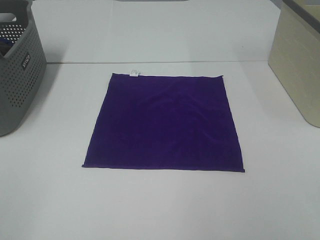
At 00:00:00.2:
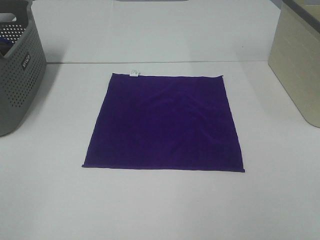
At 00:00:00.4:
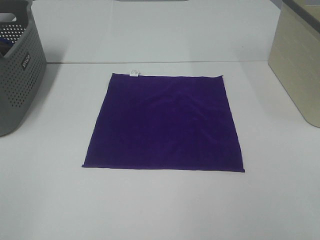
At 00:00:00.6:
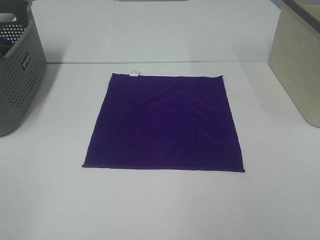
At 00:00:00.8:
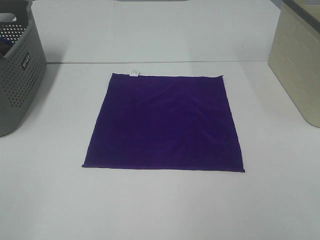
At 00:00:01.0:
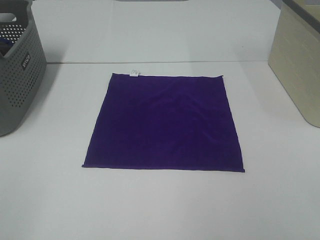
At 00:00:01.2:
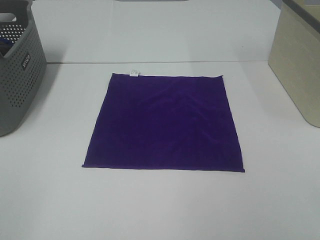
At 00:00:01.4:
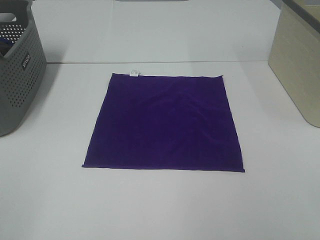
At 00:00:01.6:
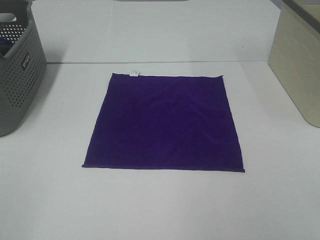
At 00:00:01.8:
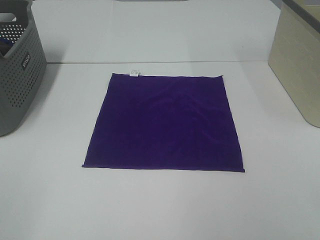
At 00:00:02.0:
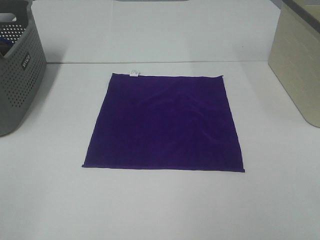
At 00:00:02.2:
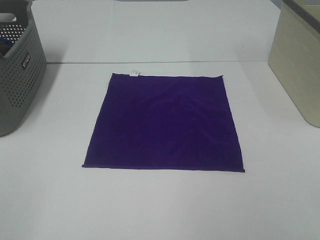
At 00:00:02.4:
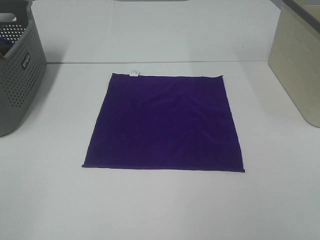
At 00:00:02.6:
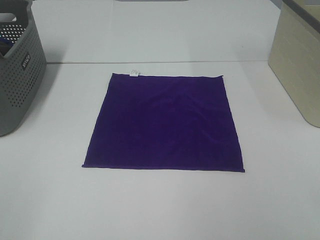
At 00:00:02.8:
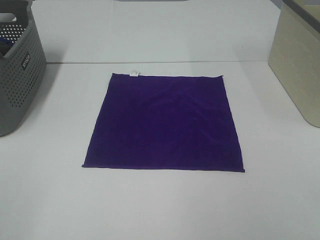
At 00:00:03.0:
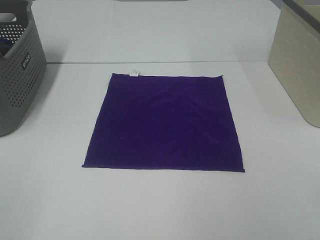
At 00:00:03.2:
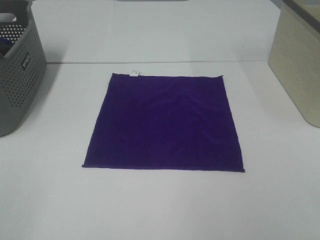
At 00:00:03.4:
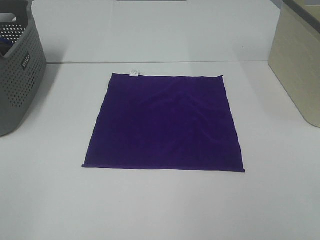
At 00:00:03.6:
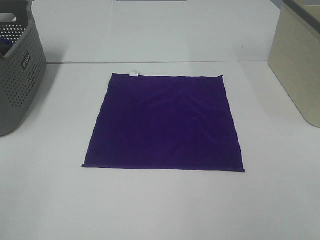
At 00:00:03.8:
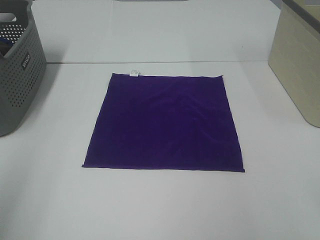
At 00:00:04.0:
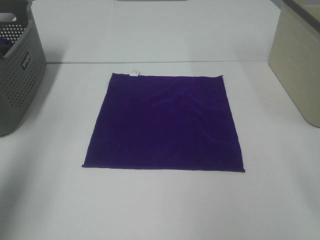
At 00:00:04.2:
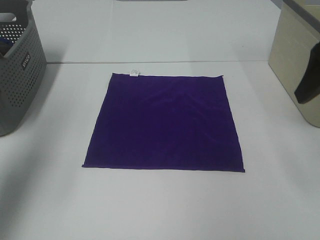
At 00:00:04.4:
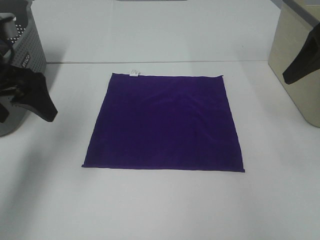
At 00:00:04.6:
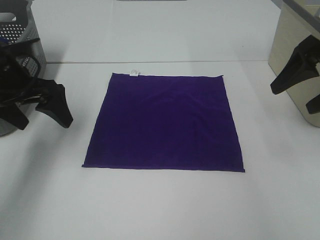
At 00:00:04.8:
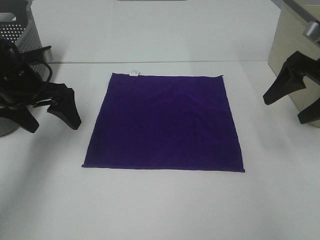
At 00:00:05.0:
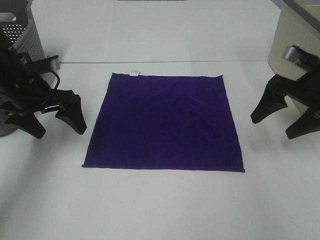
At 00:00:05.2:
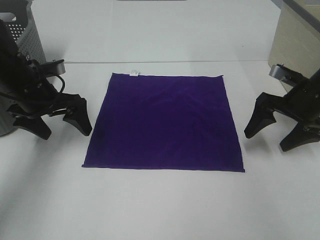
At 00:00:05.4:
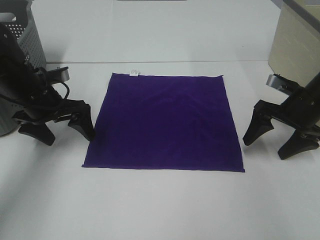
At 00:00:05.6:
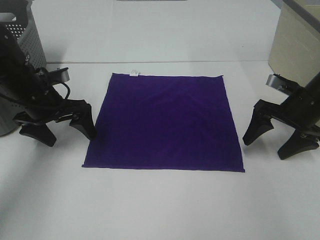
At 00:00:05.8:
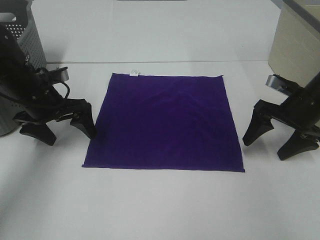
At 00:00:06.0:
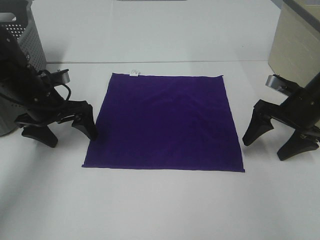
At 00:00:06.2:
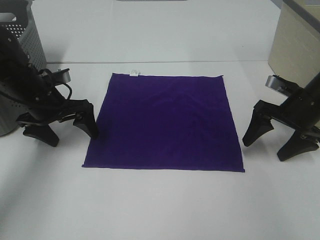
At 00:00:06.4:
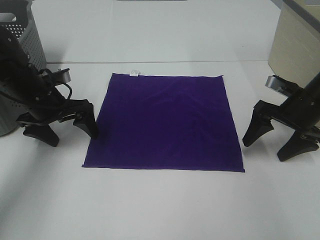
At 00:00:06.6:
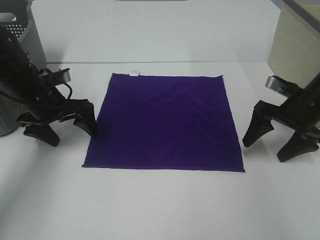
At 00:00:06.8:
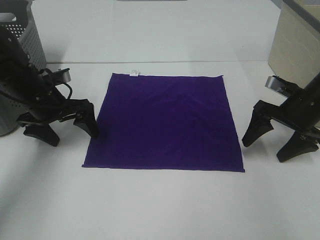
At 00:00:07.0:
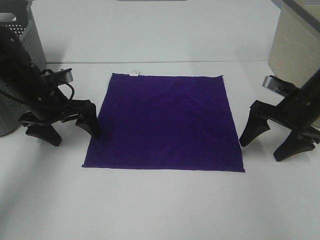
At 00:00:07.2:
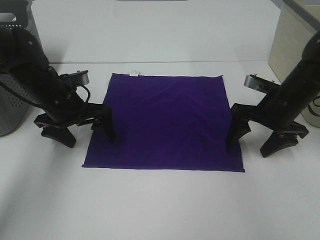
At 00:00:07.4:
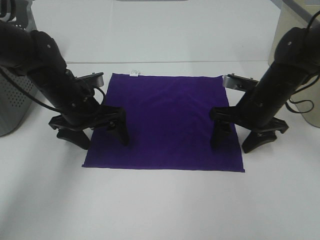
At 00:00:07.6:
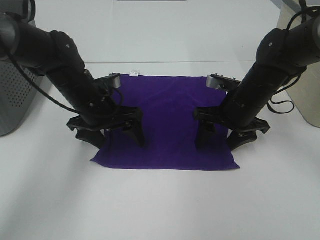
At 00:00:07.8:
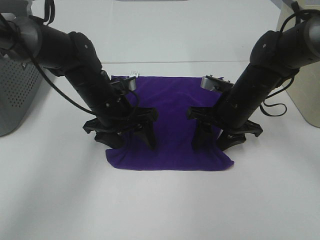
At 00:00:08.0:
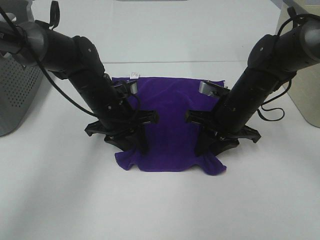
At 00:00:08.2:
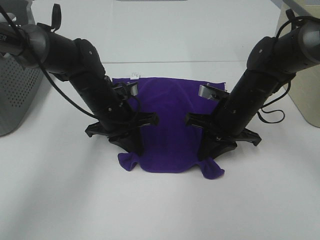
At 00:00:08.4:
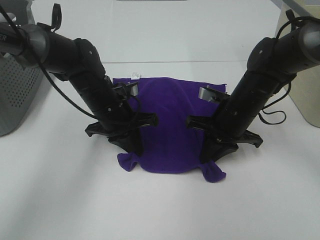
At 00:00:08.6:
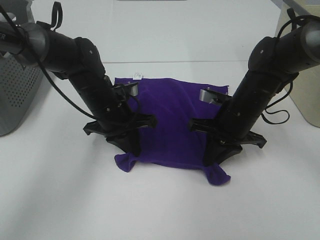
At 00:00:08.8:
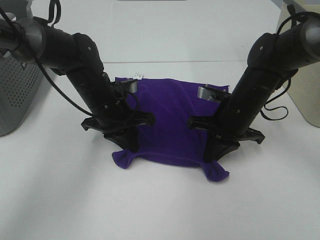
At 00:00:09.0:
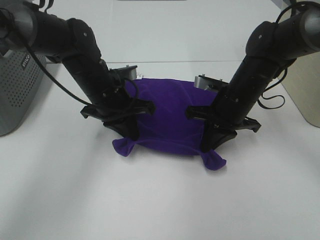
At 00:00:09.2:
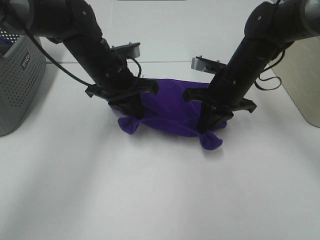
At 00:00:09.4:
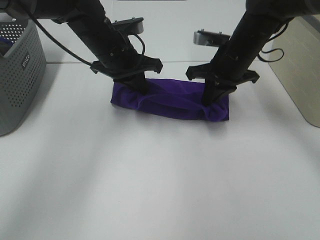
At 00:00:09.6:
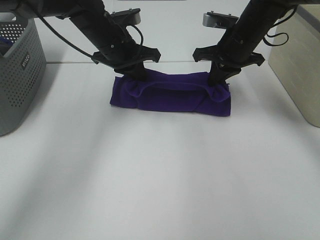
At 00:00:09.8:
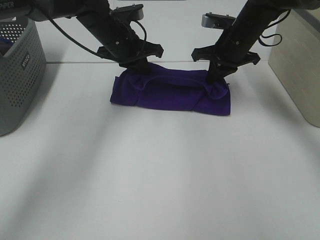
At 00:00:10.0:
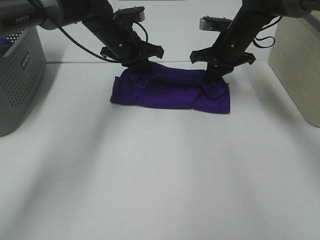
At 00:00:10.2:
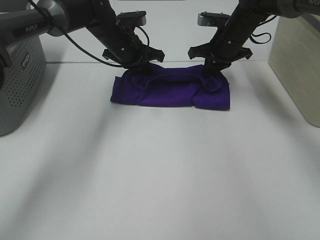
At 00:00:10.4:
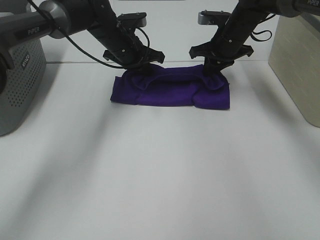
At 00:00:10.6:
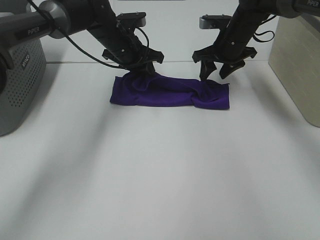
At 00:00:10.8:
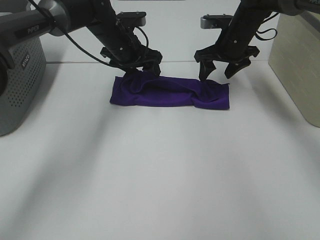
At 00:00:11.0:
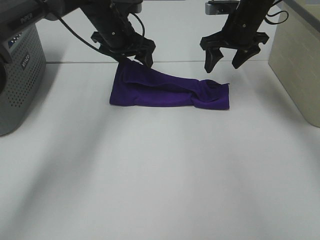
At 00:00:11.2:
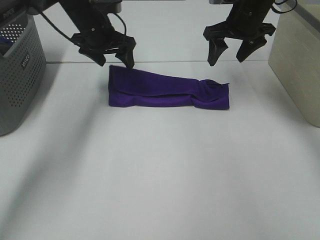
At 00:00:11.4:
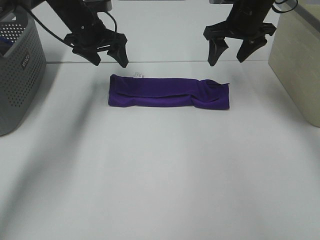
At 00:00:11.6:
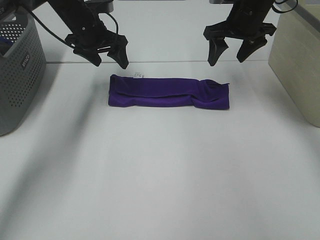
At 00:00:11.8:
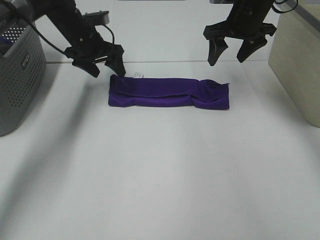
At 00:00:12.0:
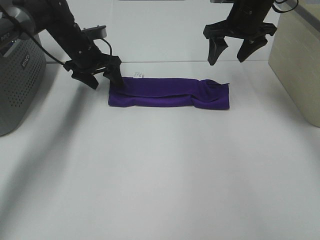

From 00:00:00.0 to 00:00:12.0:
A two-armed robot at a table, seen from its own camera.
Task of the whole recording: Fold towels.
Step, from 00:00:00.0 to 00:00:08.0: Left hand: grab the bottom left corner of purple towel.
Step, from 00:00:00.0 to 00:00:08.0: Right hand: grab the bottom right corner of purple towel.
Step, from 00:00:08.2 to 00:00:10.6: Left hand: fold the purple towel up.
Step, from 00:00:08.2 to 00:00:10.6: Right hand: fold the purple towel up.
From 00:00:00.0 to 00:00:03.0: Both grippers stay put.
From 00:00:03.0 to 00:00:04.4: Both grippers move forward, some 30 cm.
From 00:00:04.4 to 00:00:06.0: The left gripper goes about 15 cm downward and forward. The right gripper goes about 15 cm downward.
From 00:00:06.0 to 00:00:07.6: The left gripper shifts about 10 cm to the right; the right gripper is displaced to the left by some 10 cm.
From 00:00:07.6 to 00:00:09.0: The right gripper closes. Meanwhile the left gripper closes up.
From 00:00:09.0 to 00:00:10.4: The grippers both shift forward by roughly 15 cm.
From 00:00:10.4 to 00:00:12.0: The right gripper heads upward, covering some 5 cm, and opens its fingers. The left gripper heads to the left, covering some 10 cm, and opens its fingers.

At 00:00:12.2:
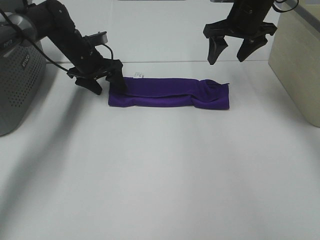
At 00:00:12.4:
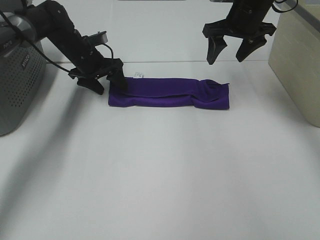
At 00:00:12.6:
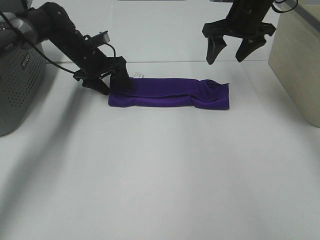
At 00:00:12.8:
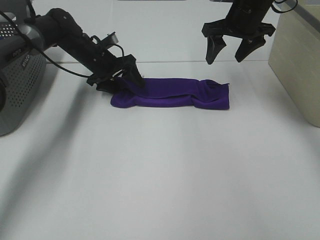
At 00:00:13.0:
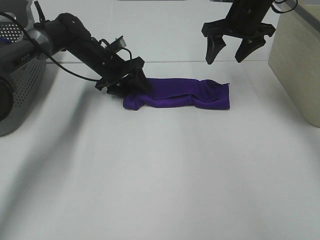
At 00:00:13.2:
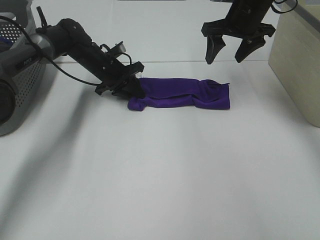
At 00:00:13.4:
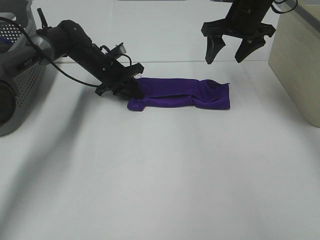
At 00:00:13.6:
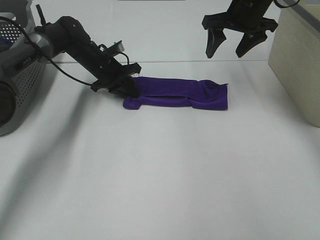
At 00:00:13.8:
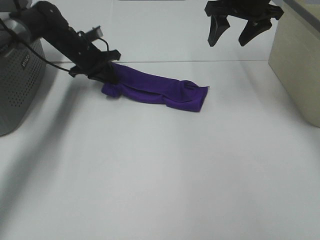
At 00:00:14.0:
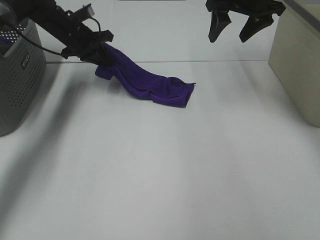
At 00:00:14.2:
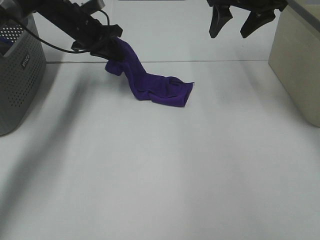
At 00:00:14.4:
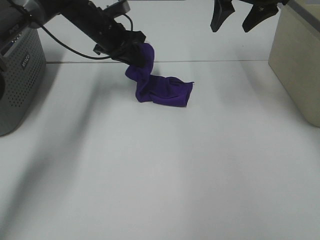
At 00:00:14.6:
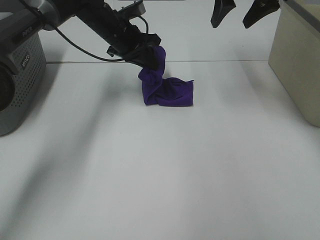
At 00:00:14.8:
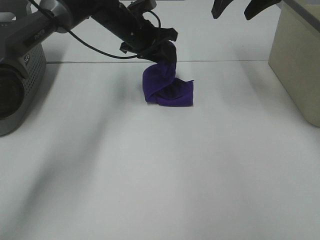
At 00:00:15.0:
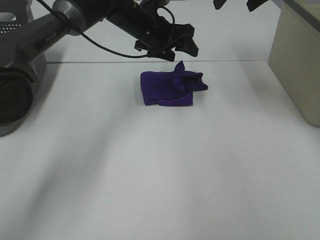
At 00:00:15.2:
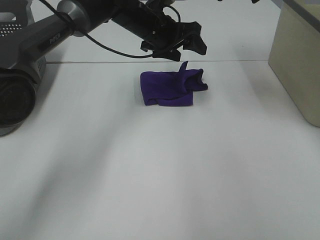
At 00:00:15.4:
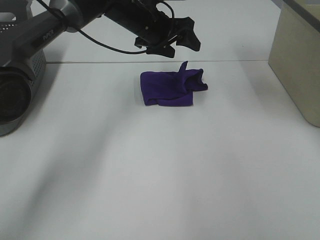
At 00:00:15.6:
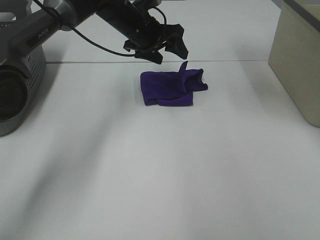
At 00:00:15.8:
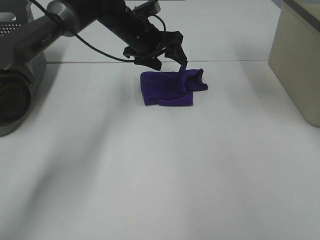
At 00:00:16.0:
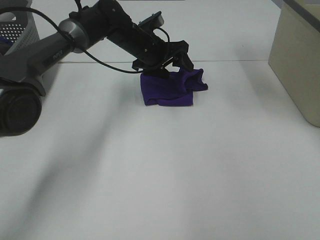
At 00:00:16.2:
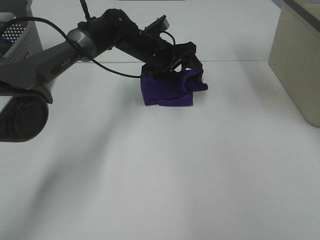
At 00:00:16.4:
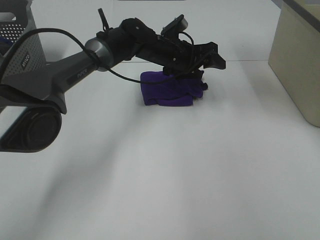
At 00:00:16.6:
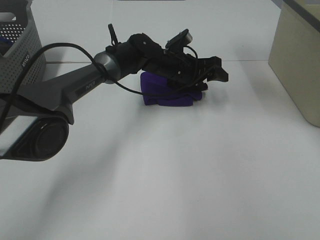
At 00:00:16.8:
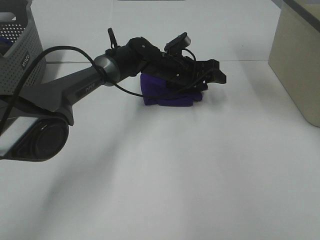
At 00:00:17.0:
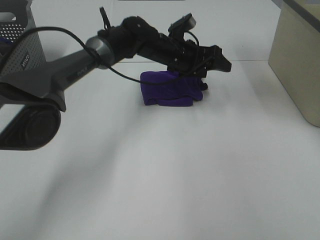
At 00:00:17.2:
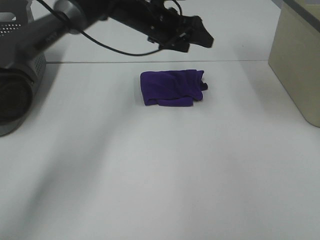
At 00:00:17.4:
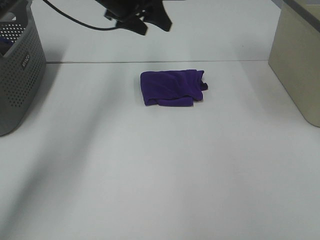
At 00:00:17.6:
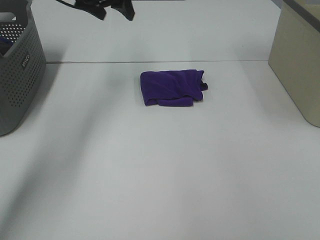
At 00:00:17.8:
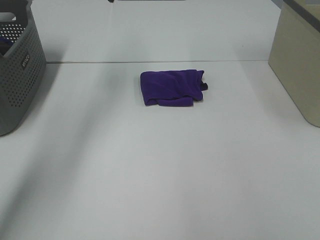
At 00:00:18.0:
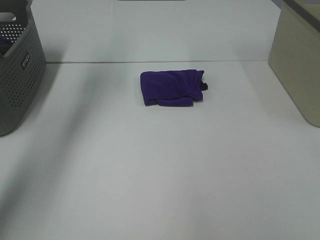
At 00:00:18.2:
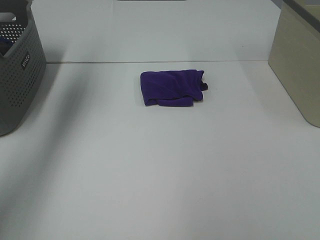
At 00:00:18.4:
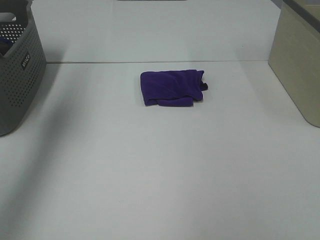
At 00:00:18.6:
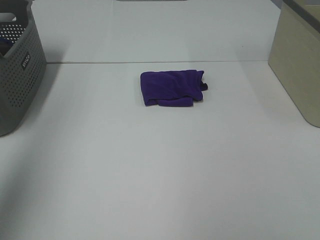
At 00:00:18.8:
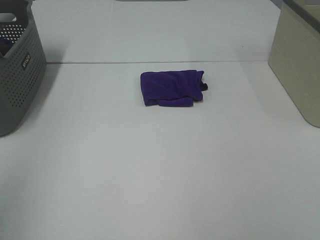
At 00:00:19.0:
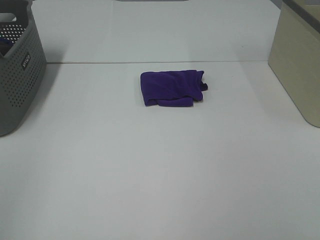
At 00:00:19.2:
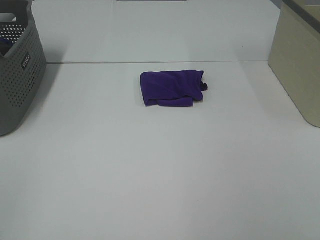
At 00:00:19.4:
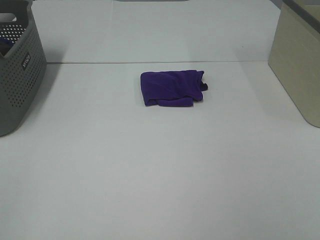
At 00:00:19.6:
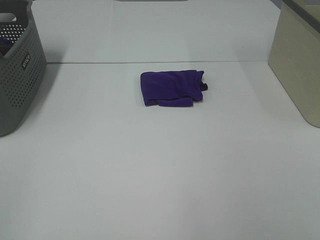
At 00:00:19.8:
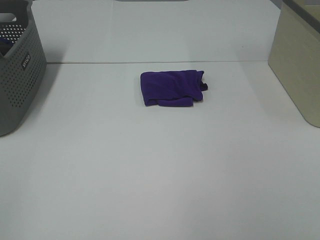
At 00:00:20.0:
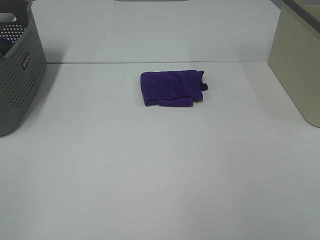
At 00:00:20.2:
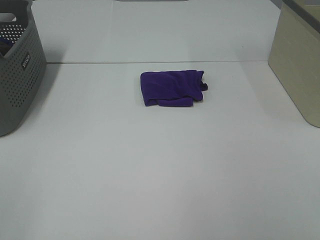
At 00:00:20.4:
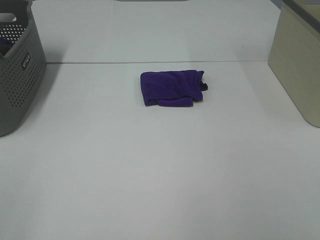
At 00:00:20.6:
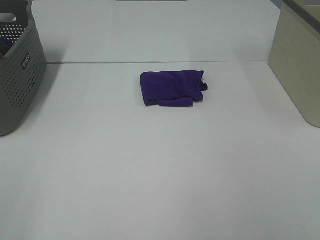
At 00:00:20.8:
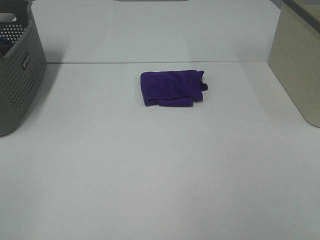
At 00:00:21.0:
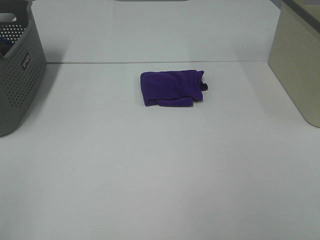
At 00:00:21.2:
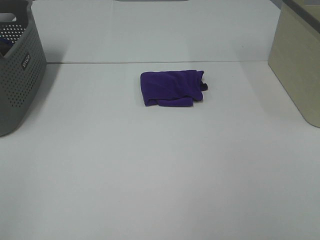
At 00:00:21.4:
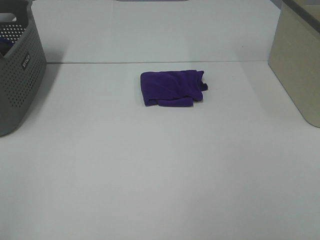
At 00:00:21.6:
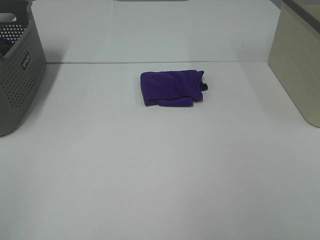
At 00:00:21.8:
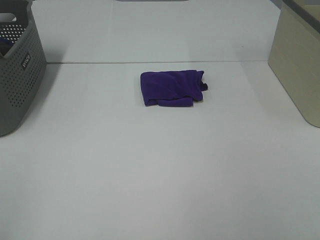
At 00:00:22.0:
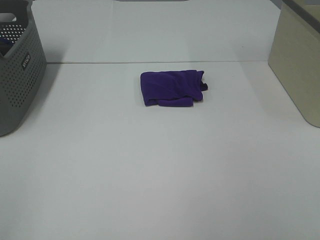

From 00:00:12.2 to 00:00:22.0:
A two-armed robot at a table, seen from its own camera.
Task of the whole recording: Fold towels.
Step, from 00:00:12.2 to 00:00:14.8: Left hand: fold the purple towel from left to right.
Step, from 00:00:15.0 to 00:00:17.0: Left hand: adjust the purple towel.
From 00:00:12.2 to 00:00:13.6: The left gripper closes.
From 00:00:13.6 to 00:00:15.0: The right gripper is displaced upward by about 10 cm. The left gripper travels to the right and upward by some 15 cm, and opens.
From 00:00:15.0 to 00:00:16.4: The left gripper moves downward, approximately 5 cm.
From 00:00:16.4 to 00:00:17.8: The left gripper moves upward and to the left, about 30 cm, while the right gripper is displaced backward and upward by approximately 15 cm.
From 00:00:17.8 to 00:00:19.2: Both grippers move backward, about 40 cm.
